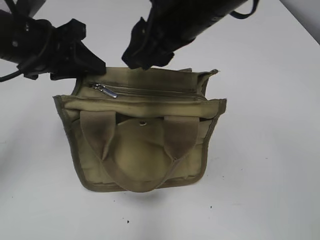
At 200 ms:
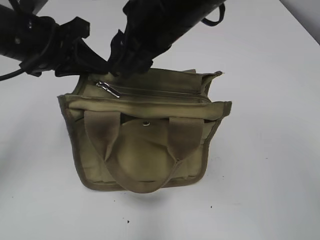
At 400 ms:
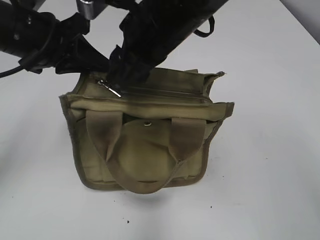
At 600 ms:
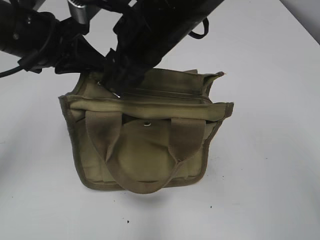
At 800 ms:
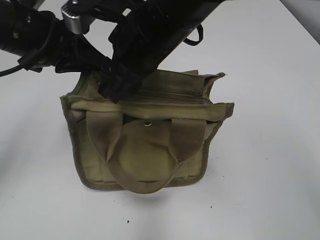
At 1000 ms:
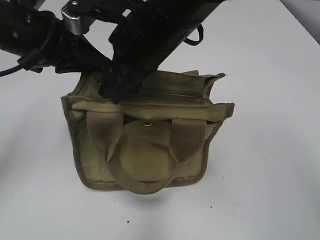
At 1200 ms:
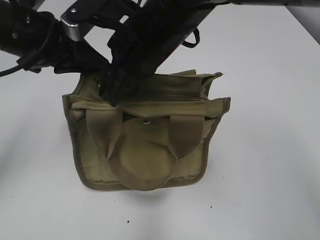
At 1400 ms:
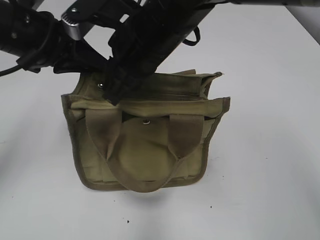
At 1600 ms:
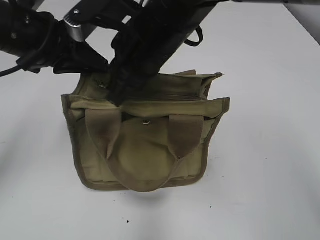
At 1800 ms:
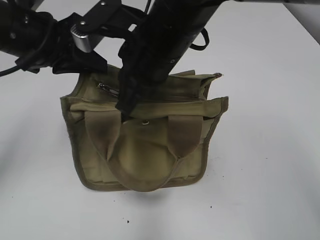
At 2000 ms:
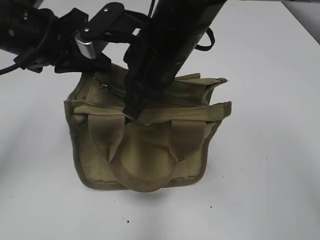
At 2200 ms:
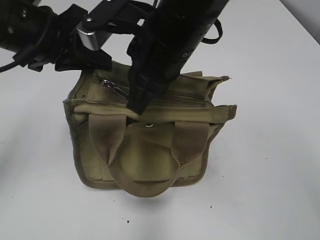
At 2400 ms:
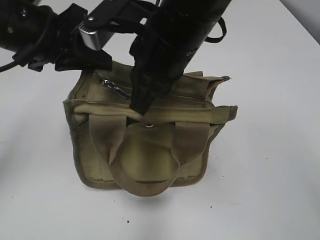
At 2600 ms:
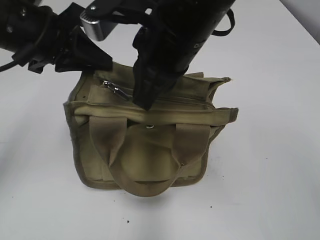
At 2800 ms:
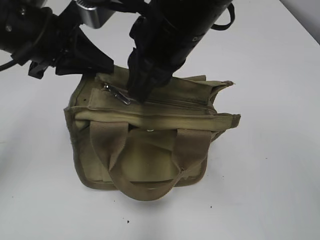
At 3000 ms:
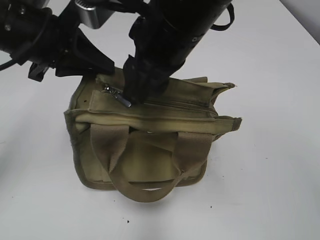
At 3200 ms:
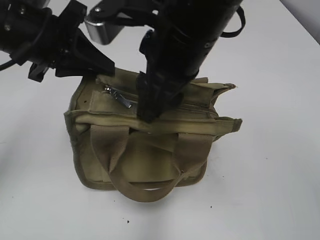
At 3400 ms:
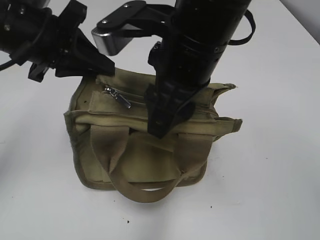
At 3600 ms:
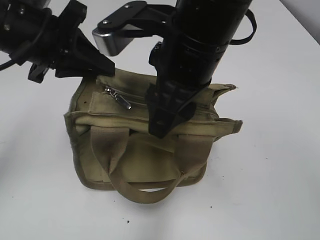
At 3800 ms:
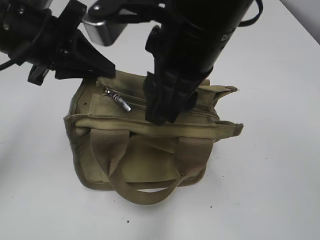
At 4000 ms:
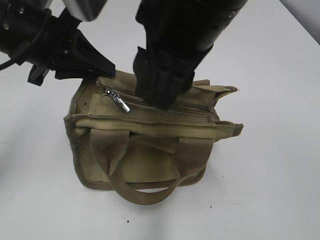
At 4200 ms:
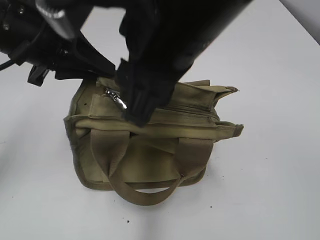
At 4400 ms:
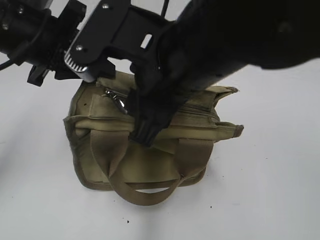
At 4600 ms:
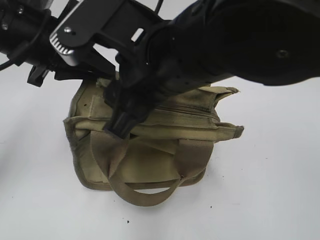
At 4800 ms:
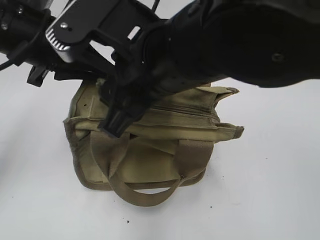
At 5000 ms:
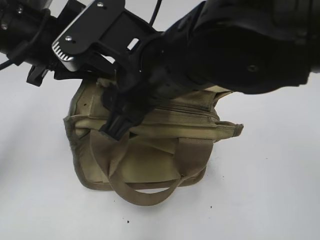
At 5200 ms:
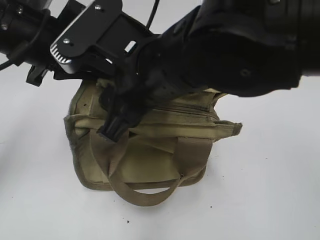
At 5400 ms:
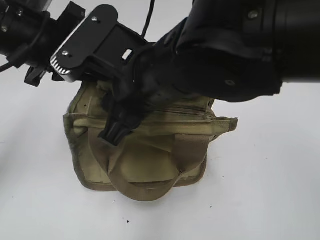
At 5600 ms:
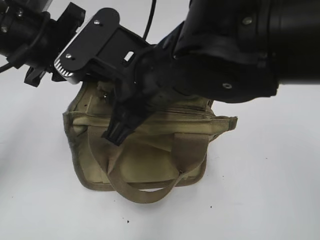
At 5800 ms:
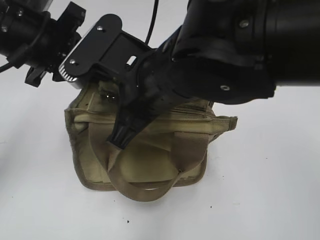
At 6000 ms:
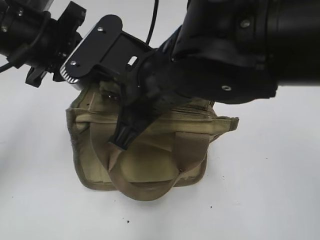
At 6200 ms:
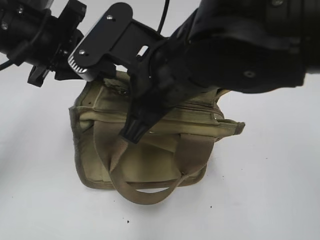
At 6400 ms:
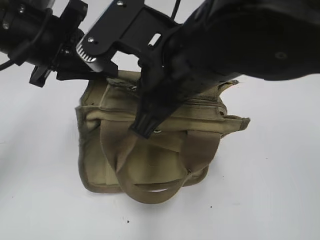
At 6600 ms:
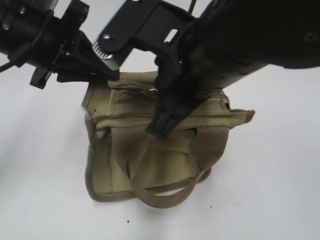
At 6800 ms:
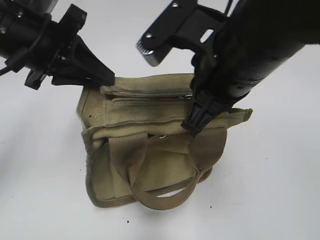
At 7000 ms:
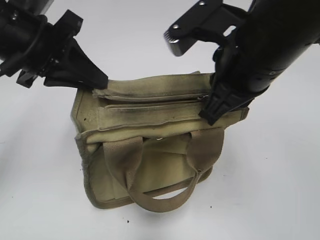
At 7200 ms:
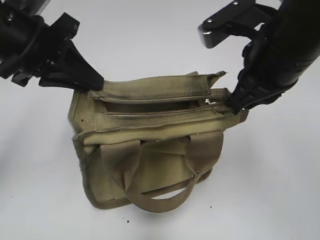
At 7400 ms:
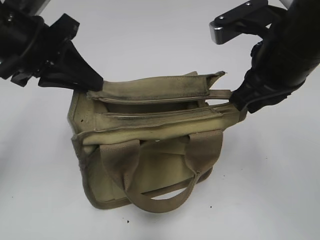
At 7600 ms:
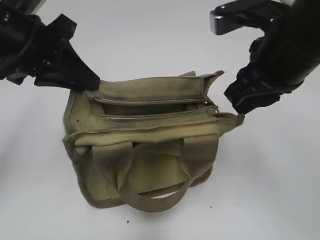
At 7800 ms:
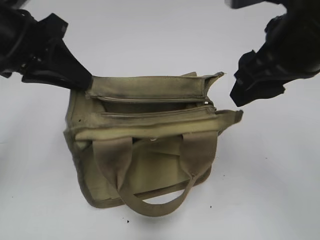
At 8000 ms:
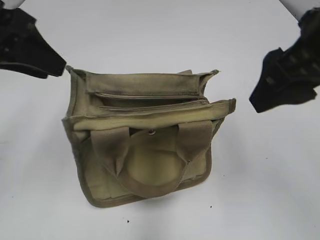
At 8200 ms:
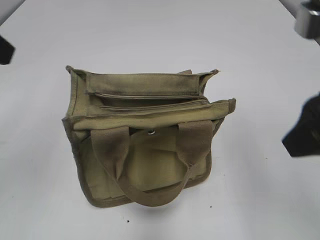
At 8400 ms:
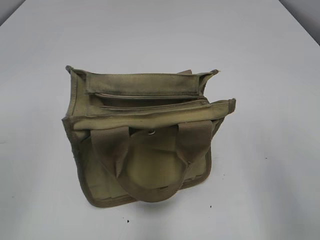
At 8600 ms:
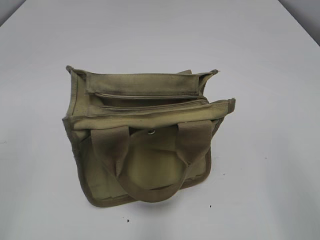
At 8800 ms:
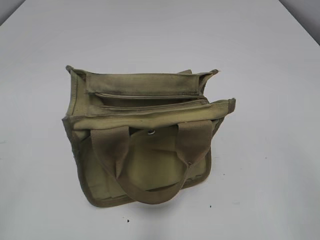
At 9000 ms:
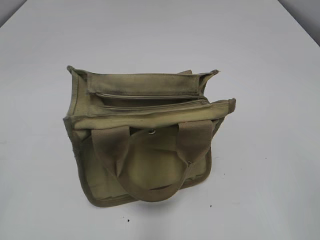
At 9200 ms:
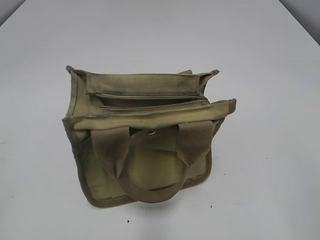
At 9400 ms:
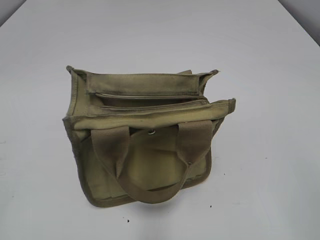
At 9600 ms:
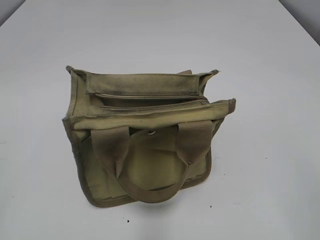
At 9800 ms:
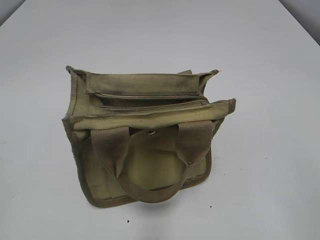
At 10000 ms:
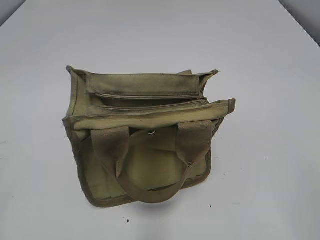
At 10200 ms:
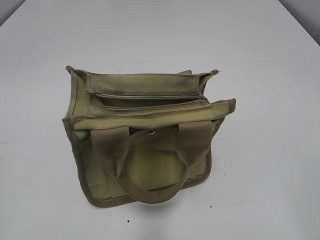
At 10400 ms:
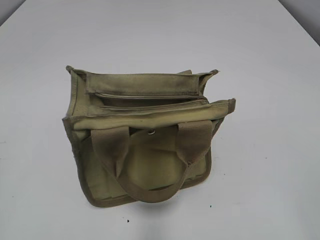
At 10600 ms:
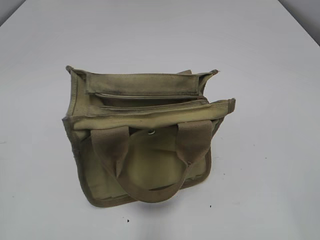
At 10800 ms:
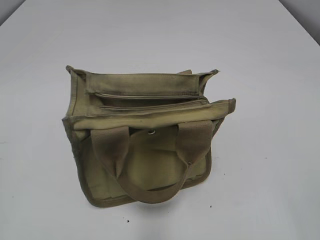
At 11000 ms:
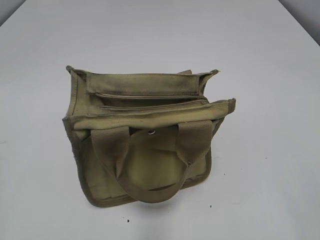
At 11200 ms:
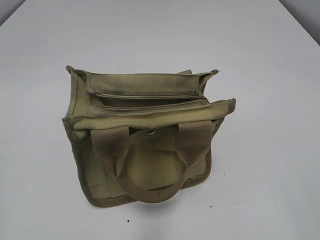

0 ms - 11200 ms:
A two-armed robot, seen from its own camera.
Step, 0 ms - 7400 ms: Pull open the zipper with your right hand.
0 ms - 1600 ms: The right gripper heads downward, covering approximately 5 cm, and closes.
1600 ms - 3200 ms: The right gripper shifts by about 5 cm, and opens its fingers.
3200 ms - 4800 ms: The right gripper shifts by some 5 cm.
4800 ms - 6400 ms: The right gripper closes.
6400 ms - 8000 ms: The left gripper changes place by approximately 10 cm, and opens its fingers. Meanwhile the right gripper heads to the right, covering some 15 cm, and opens up.
8000 ms - 9600 ms: The right gripper moves backward and to the right, some 20 cm; the left gripper travels backward and to the left by approximately 25 cm.
